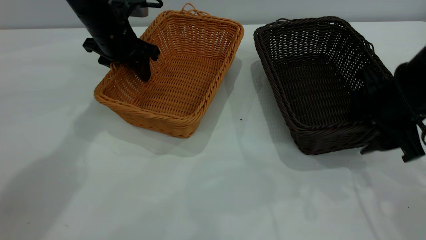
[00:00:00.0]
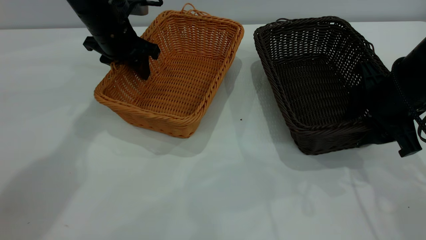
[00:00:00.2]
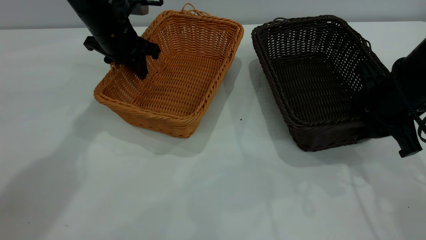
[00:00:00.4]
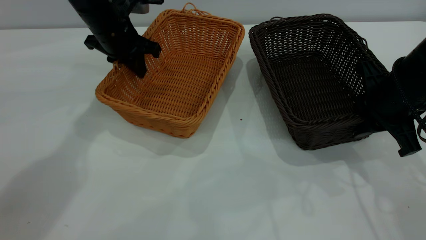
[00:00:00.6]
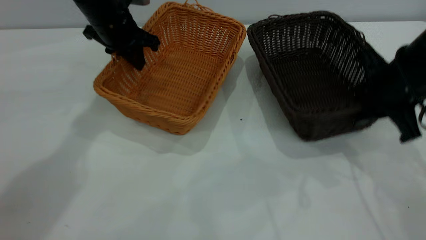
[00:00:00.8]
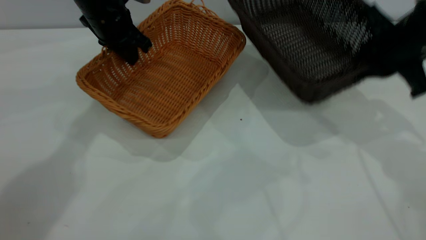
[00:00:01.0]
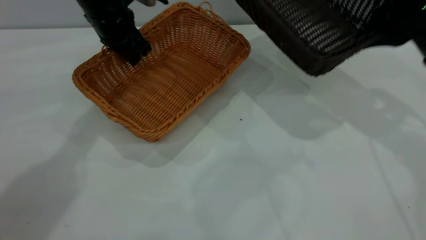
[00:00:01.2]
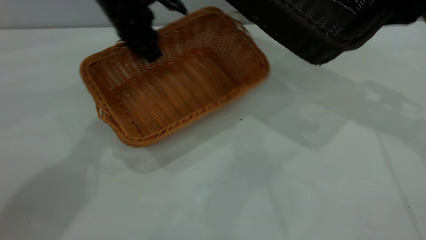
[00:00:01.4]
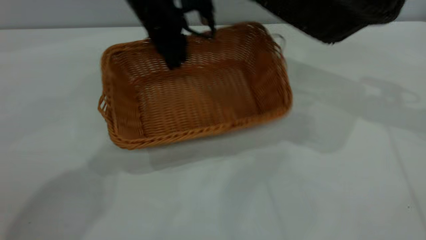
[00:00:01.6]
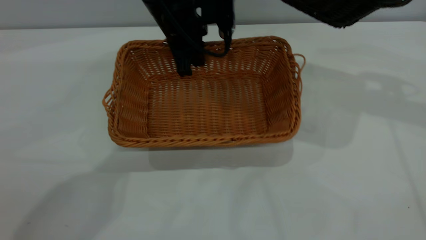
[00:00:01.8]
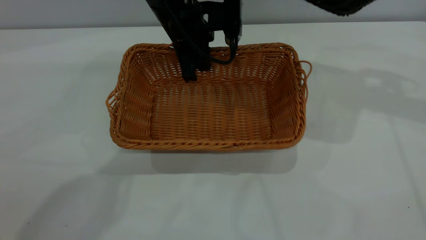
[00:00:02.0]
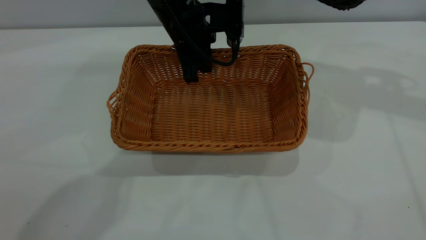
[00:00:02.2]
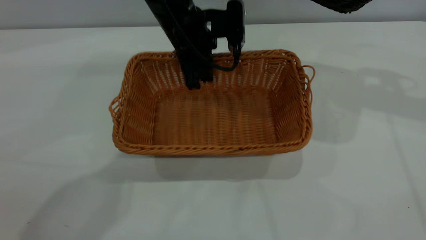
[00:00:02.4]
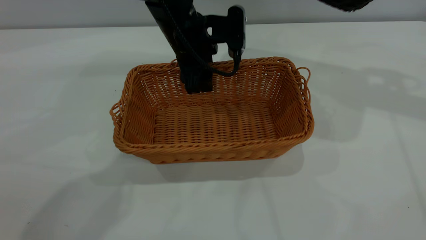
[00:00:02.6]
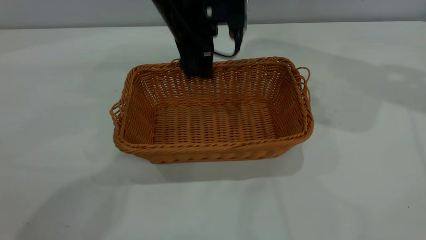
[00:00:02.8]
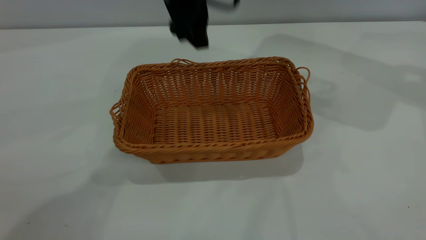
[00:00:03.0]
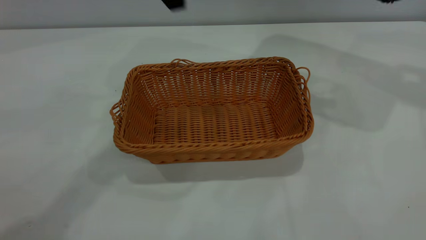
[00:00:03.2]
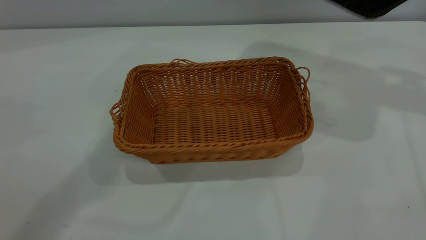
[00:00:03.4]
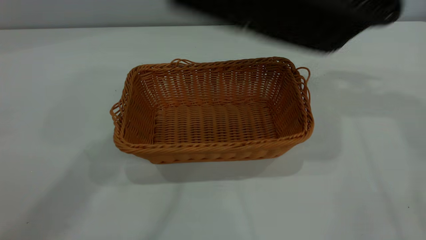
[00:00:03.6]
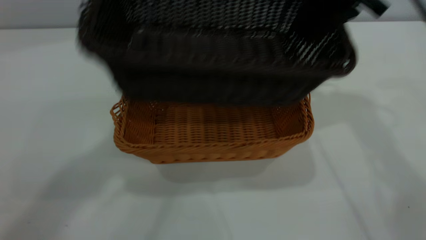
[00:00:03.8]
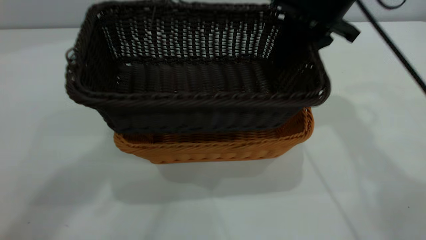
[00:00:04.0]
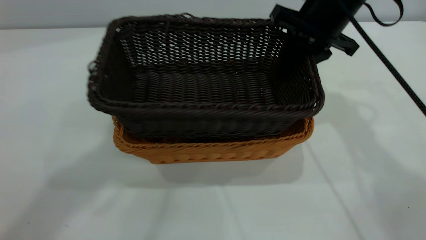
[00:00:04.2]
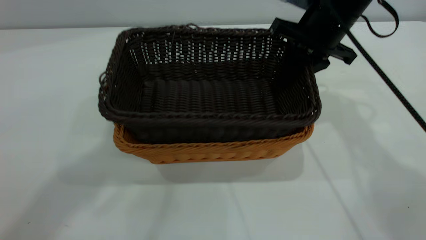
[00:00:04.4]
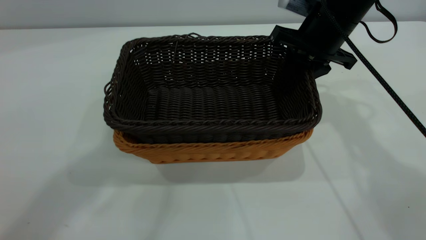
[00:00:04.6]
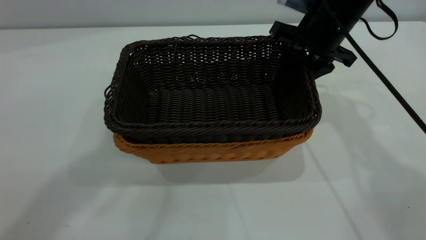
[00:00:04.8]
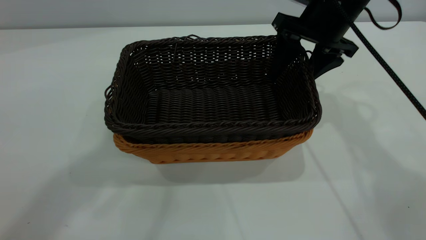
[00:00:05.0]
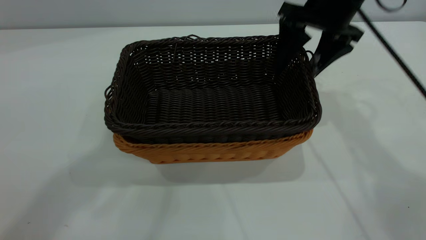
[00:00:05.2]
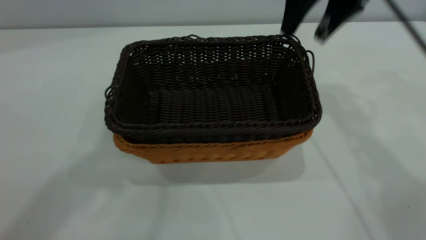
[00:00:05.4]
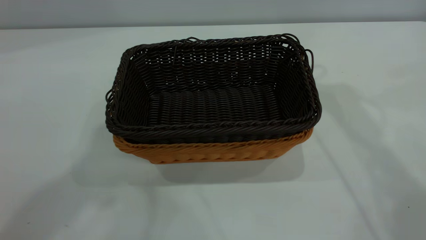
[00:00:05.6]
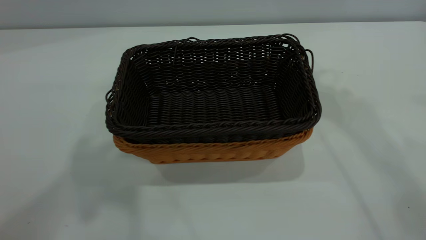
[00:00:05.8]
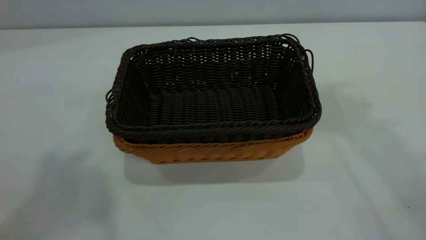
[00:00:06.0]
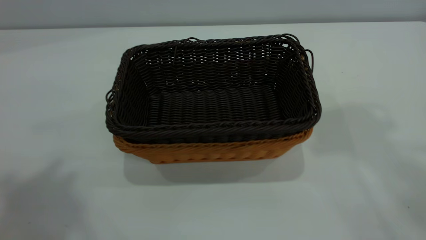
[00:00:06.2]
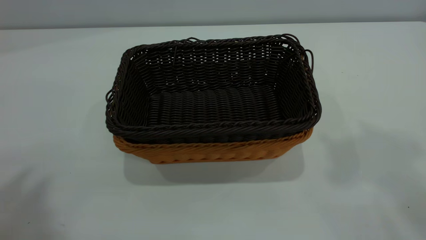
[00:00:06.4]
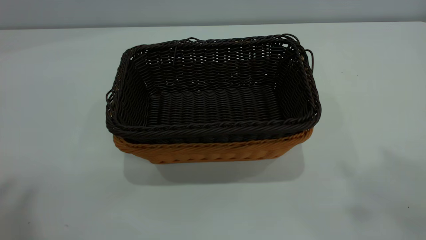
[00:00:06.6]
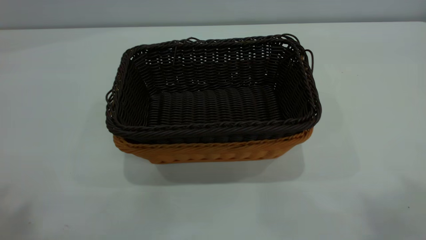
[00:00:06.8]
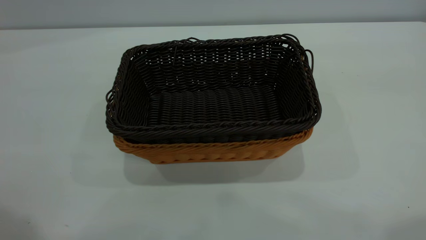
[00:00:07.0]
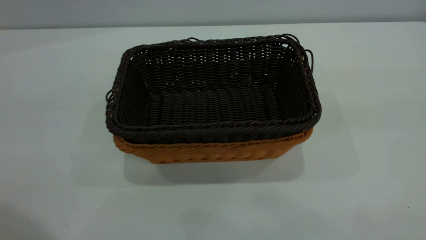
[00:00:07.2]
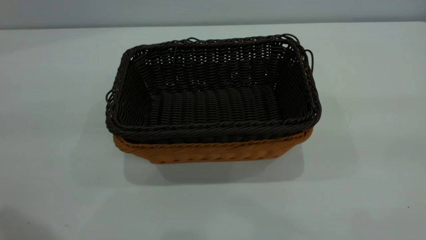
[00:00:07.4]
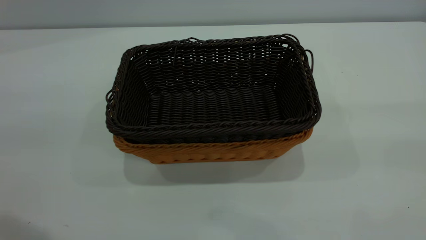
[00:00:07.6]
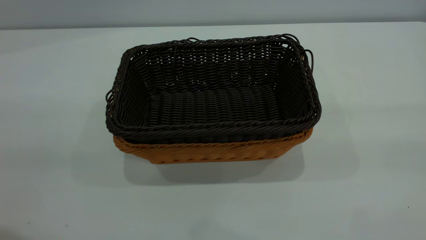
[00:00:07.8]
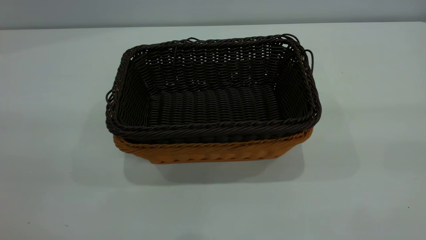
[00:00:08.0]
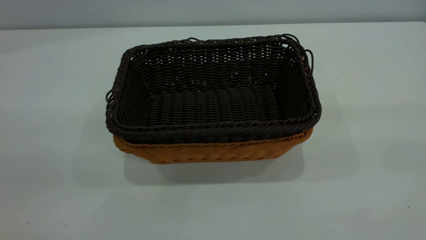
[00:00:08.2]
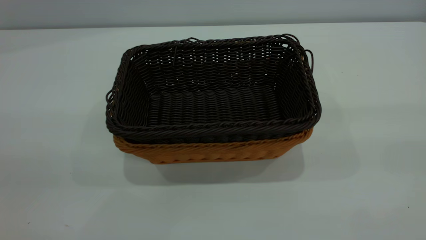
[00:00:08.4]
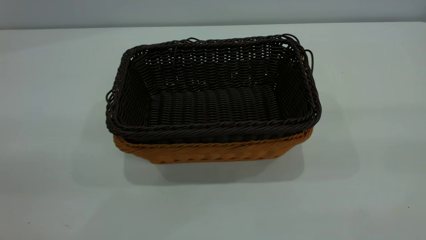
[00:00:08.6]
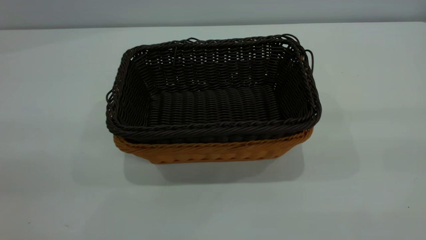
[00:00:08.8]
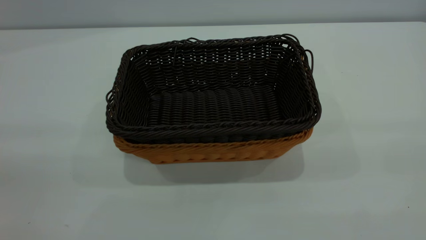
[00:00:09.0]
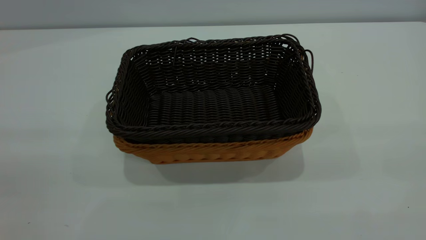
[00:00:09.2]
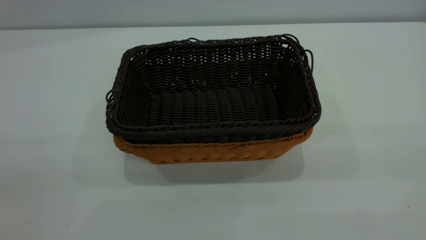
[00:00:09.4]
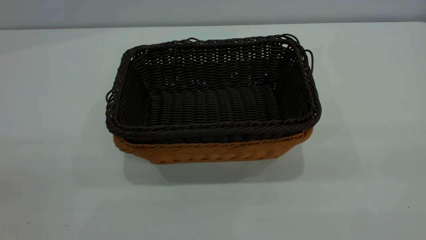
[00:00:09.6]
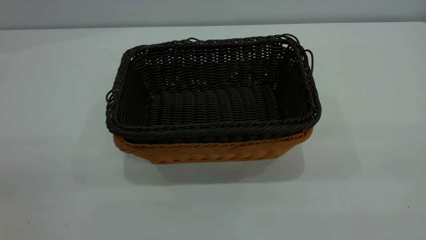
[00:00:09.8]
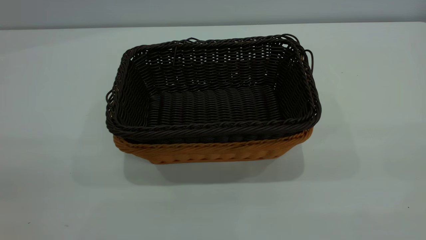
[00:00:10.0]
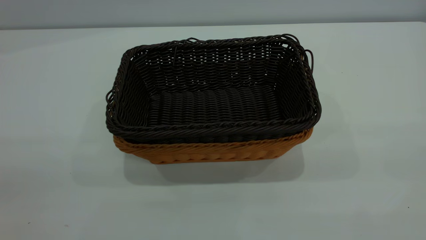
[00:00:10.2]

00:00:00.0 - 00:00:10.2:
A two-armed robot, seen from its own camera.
Task of the whole recording: the left gripper grasp the brown basket and place it in the center of the table, the right gripper grasp the black basket and place it inside the brown one.
Step, 00:00:01.2 - 00:00:03.0: Place the light-colored basket in the center.
Step, 00:00:03.2 - 00:00:05.2: Place the dark basket on top of the light basket.
00:00:00.0 - 00:00:01.4: The left gripper shifts by about 5 cm, and closes its fingers. The right gripper travels upward and forward by roughly 15 cm, and closes.
00:00:01.4 - 00:00:03.0: The left gripper travels upward, to the right and backward by roughly 15 cm, and opens up; the right gripper heads upward and to the right, covering roughly 15 cm.
00:00:03.0 - 00:00:04.4: The left gripper is displaced upward and backward by roughly 30 cm, and closes its fingers; the right gripper moves to the left and downward, about 25 cm.
00:00:04.4 - 00:00:05.8: The left gripper moves backward and upward, approximately 10 cm. The right gripper moves upward, roughly 25 cm, and opens up.
